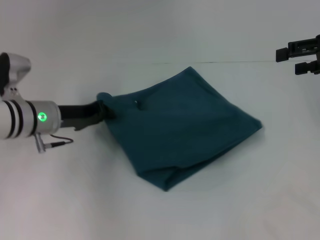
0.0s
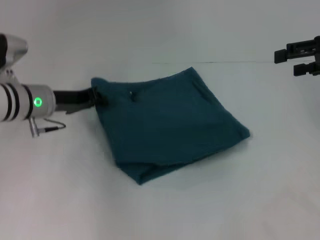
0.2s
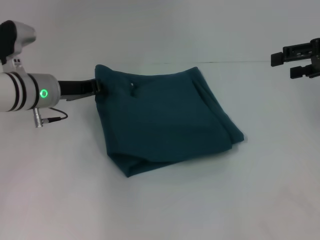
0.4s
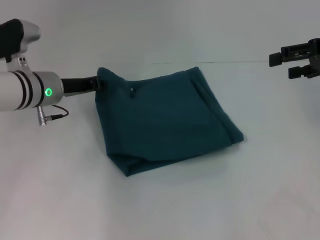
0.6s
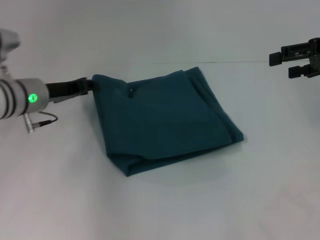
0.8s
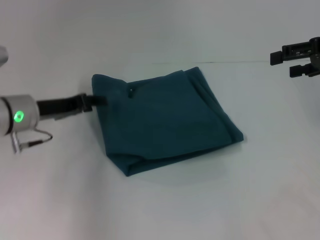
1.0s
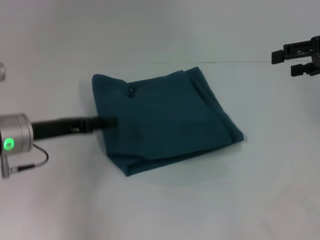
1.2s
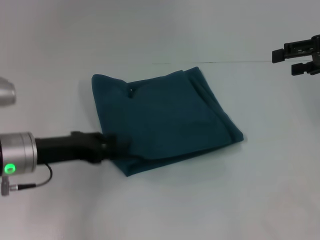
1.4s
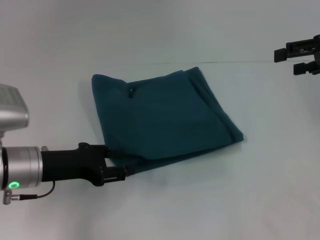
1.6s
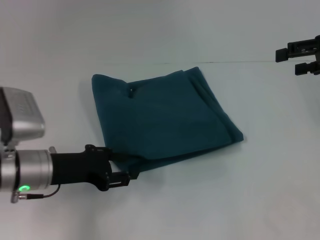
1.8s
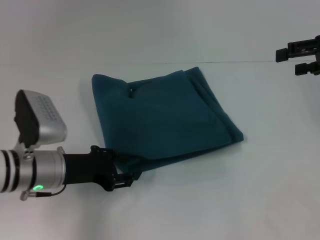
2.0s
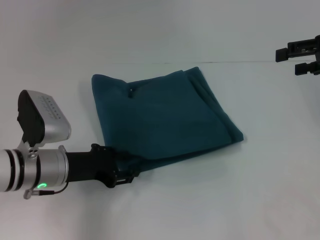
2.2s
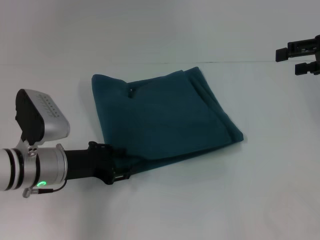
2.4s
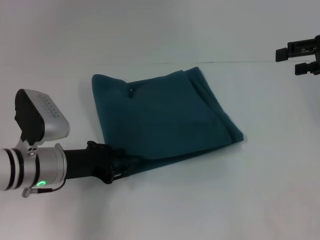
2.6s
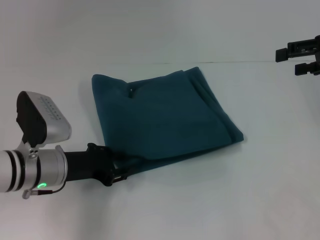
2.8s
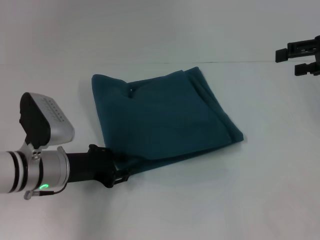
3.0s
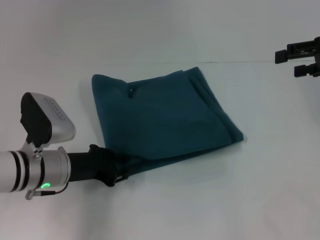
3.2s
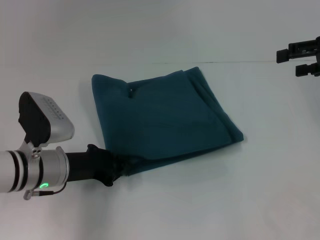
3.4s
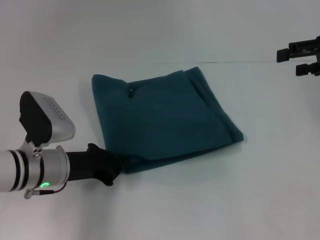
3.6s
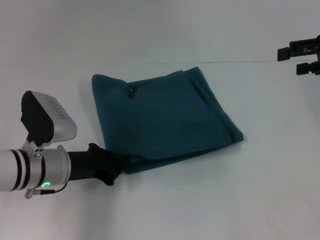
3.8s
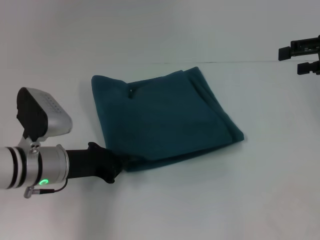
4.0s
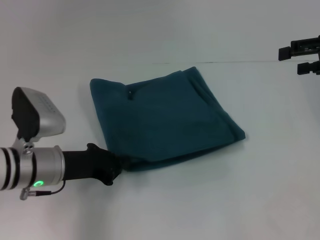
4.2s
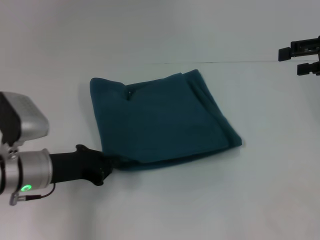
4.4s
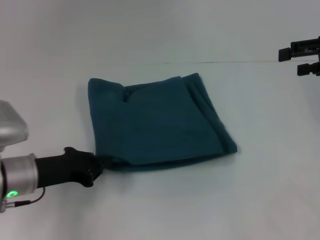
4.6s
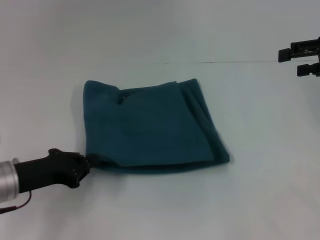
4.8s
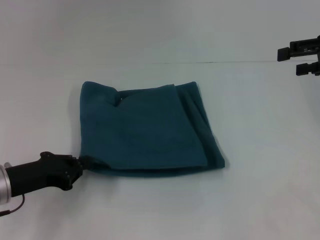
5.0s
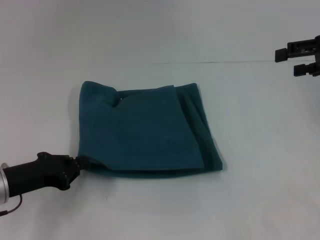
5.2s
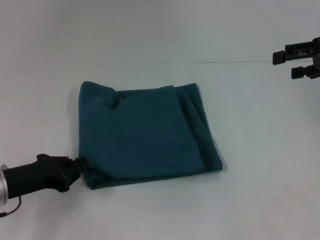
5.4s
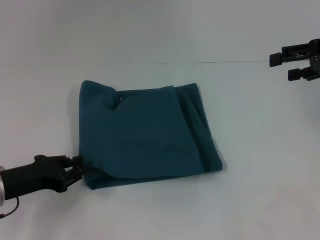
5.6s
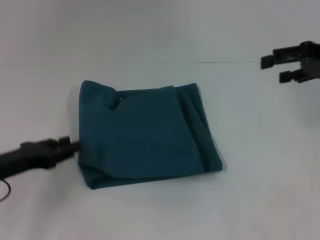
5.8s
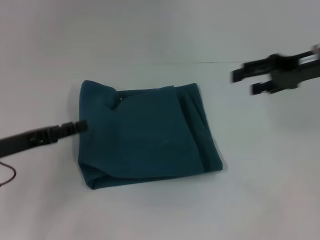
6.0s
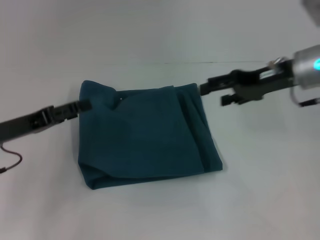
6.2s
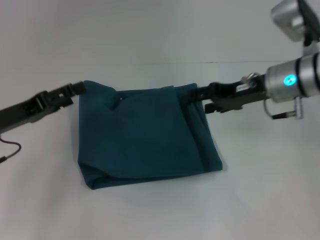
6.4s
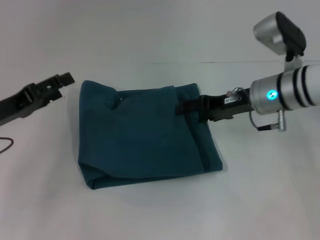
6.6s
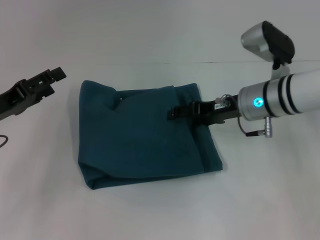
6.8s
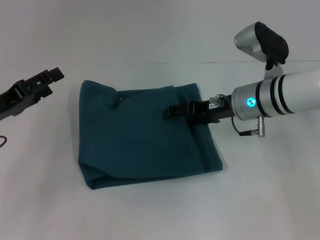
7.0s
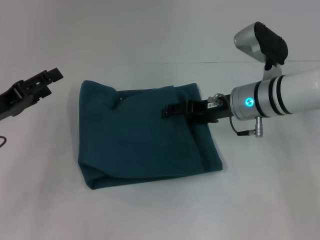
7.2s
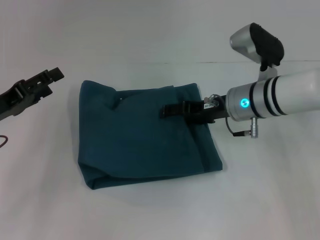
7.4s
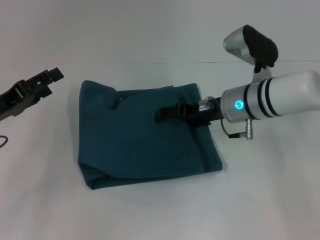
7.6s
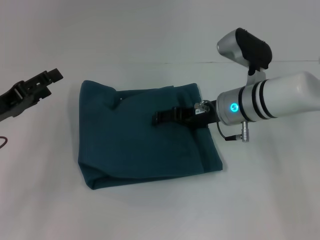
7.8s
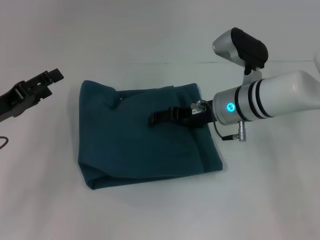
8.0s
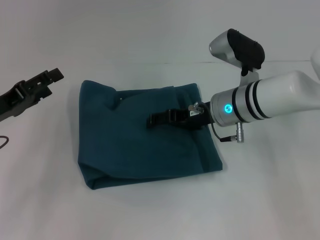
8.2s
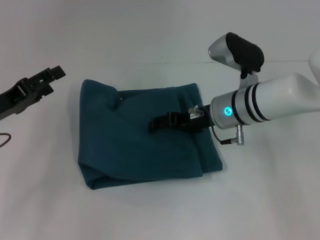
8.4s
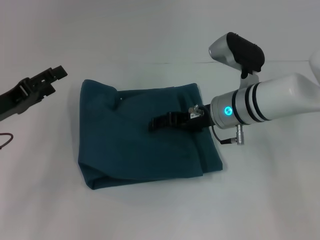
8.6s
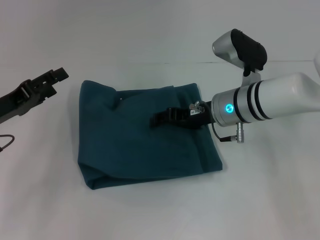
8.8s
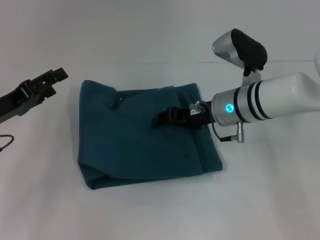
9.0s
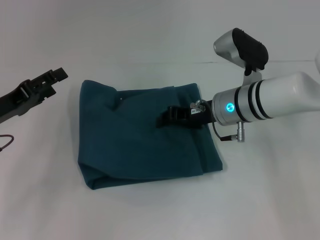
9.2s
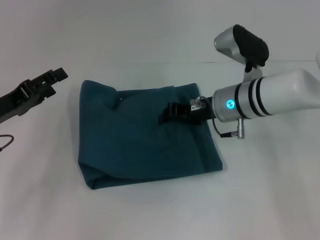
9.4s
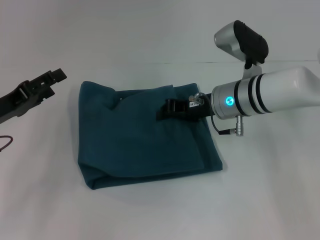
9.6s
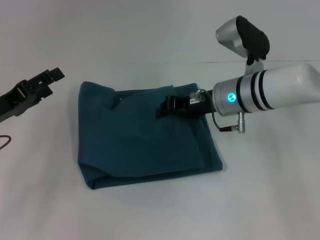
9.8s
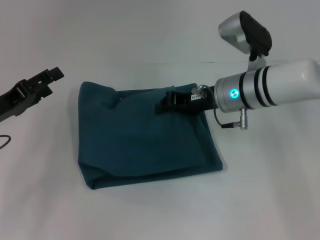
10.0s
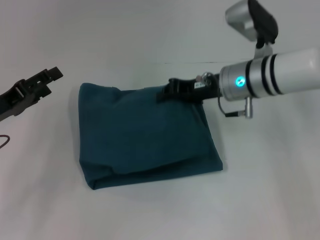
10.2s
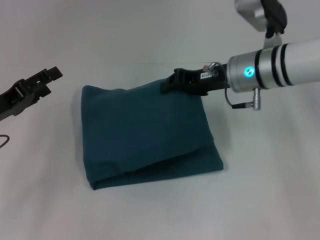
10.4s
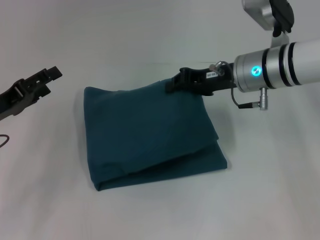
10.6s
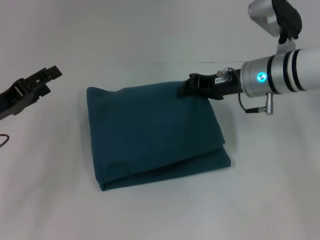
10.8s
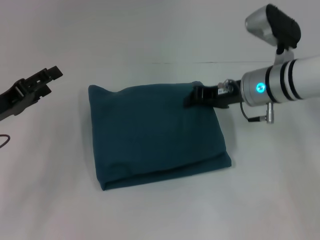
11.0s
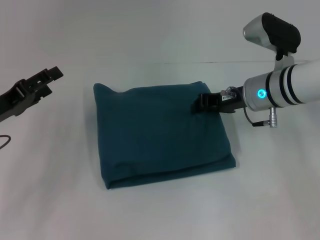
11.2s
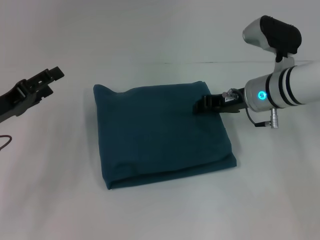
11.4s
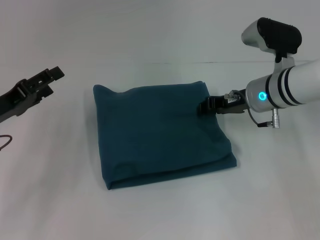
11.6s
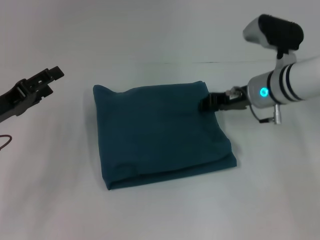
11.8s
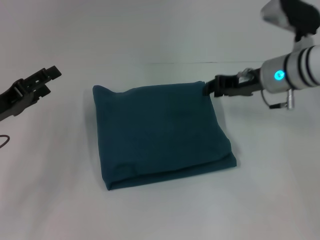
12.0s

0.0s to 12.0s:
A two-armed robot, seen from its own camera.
0.0s to 1.6s: The left gripper moves backward, some 10 cm, and opens its fingers.
1.6s to 3.0s: The grippers make only small movements.
3.0s to 4.4s: The left gripper closes up.
4.4s to 6.0s: Both grippers move to the left, about 5 cm. The left gripper opens its fingers.
6.0s to 7.6s: The left gripper opens up, while the right gripper moves to the left and downward, about 15 cm.
7.6s to 9.0s: The grippers stay close to where they were, moving slightly.
9.0s to 10.4s: The right gripper goes roughly 5 cm upward, and closes up.
10.4s to 12.0s: The right gripper shifts roughly 5 cm to the right.

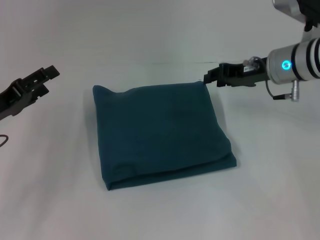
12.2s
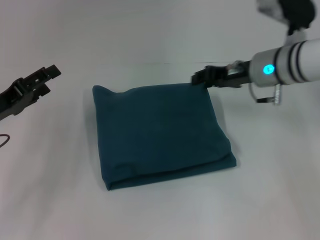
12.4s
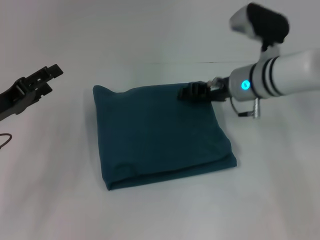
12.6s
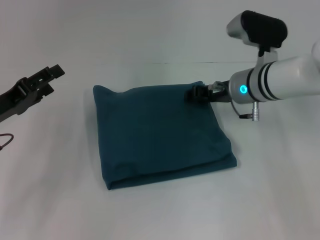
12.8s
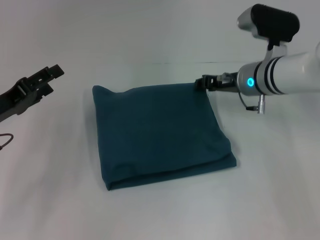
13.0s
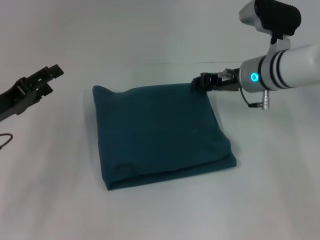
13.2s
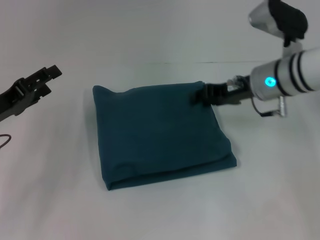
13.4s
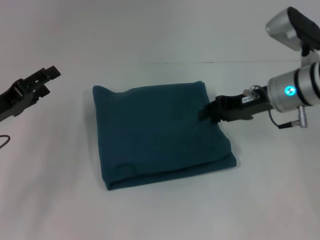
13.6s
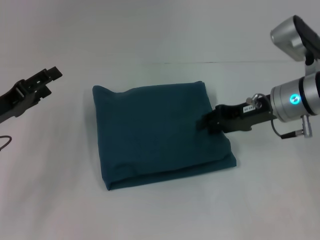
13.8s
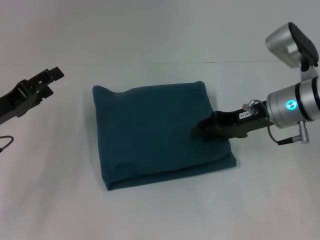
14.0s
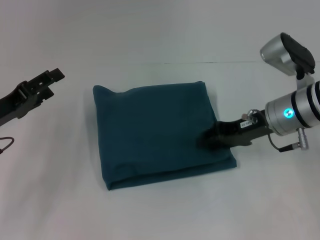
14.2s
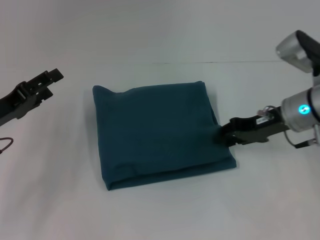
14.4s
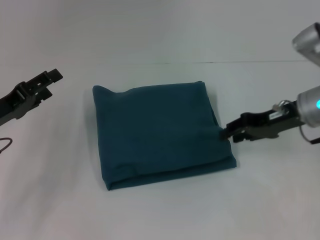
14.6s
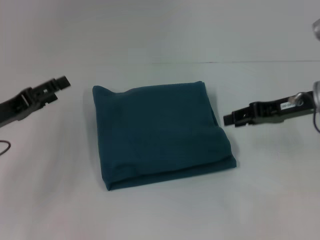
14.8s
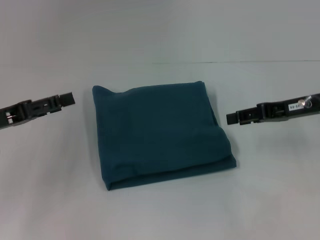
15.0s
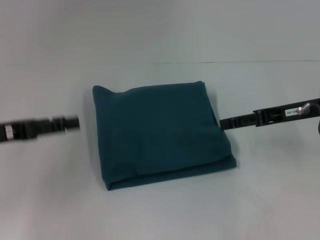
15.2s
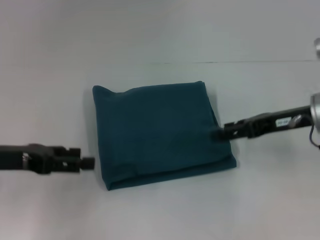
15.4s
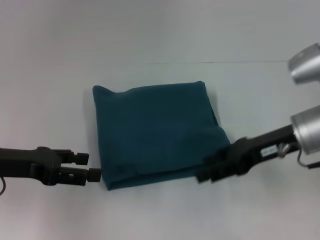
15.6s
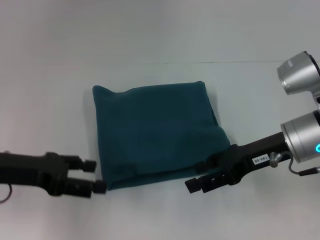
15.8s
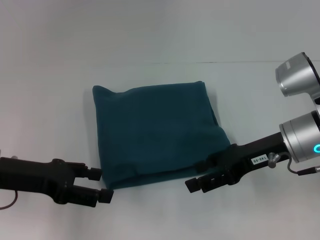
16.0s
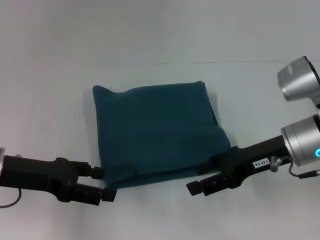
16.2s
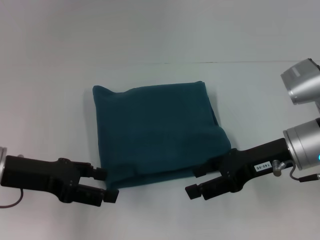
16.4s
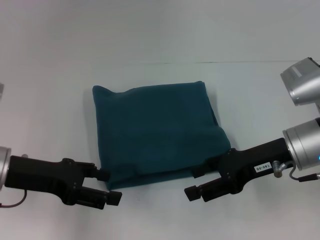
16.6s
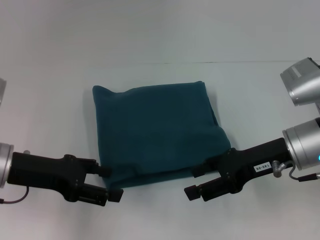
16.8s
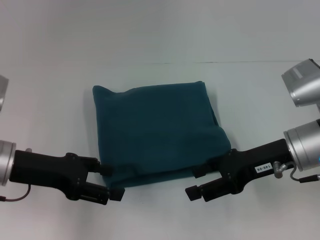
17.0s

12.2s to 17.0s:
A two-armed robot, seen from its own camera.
12.2s to 13.8s: The right gripper moves some 5 cm.
13.8s to 15.4s: The right gripper shifts by about 5 cm.
15.4s to 17.0s: The right gripper changes place by some 5 cm.

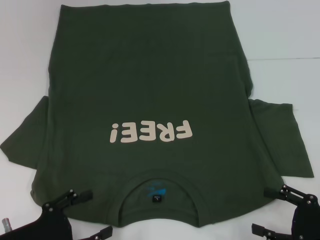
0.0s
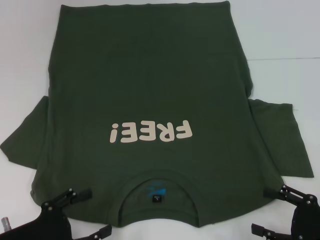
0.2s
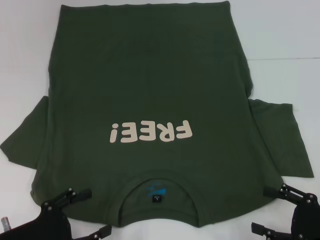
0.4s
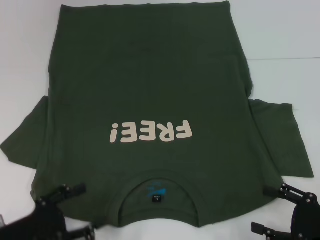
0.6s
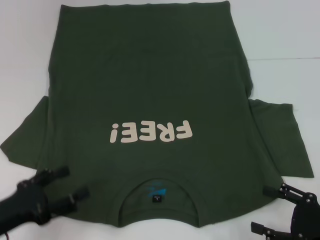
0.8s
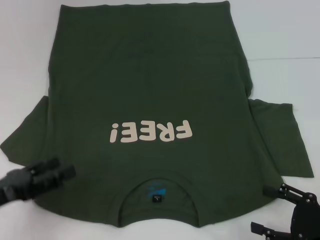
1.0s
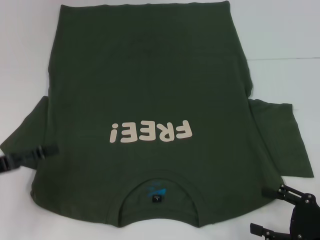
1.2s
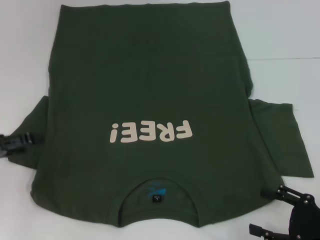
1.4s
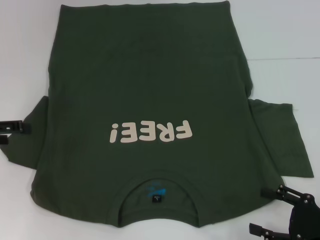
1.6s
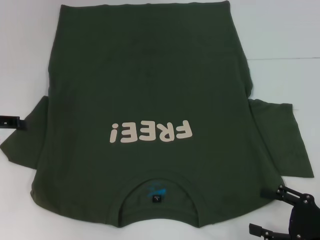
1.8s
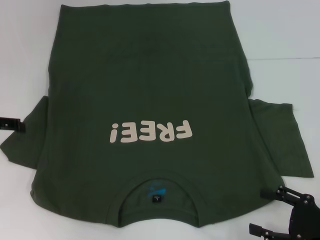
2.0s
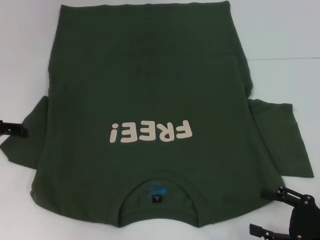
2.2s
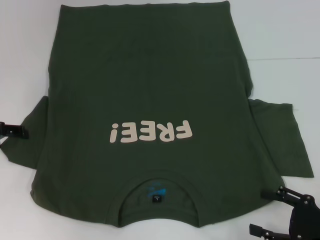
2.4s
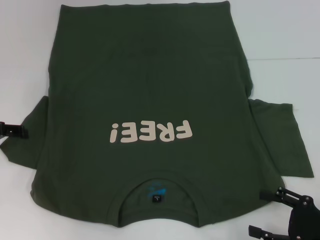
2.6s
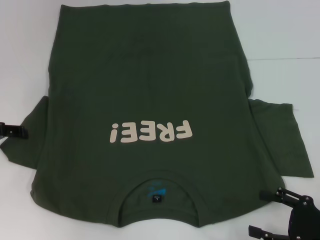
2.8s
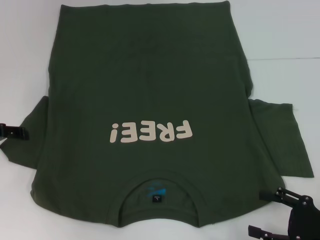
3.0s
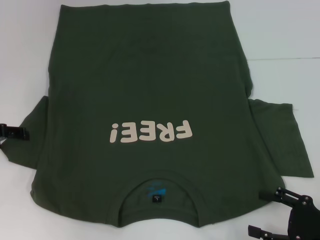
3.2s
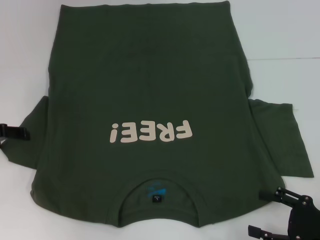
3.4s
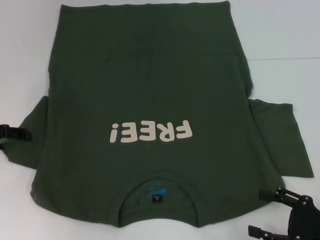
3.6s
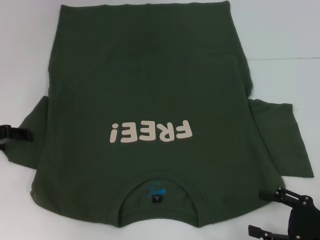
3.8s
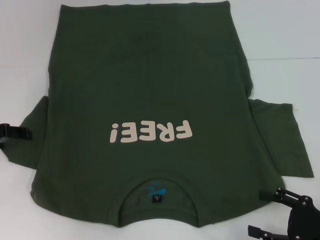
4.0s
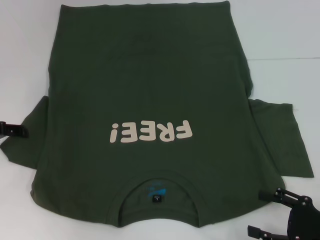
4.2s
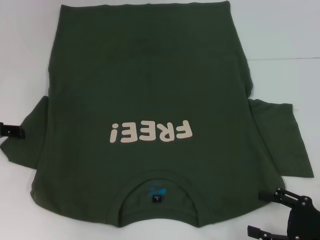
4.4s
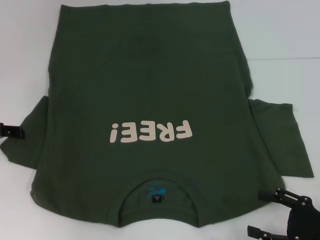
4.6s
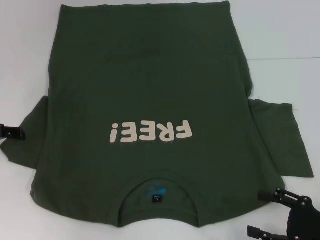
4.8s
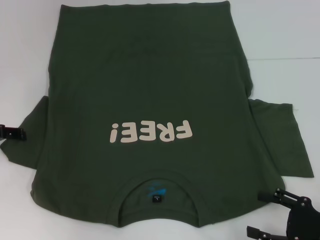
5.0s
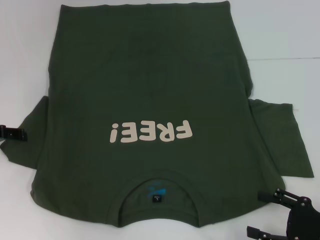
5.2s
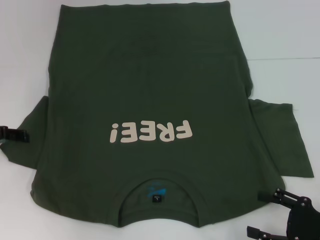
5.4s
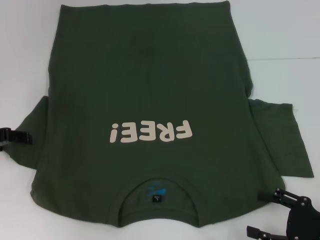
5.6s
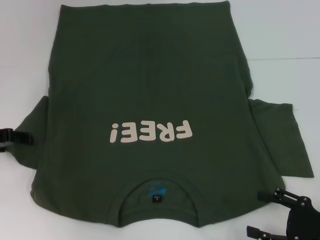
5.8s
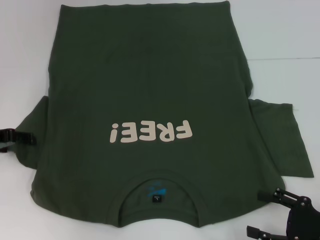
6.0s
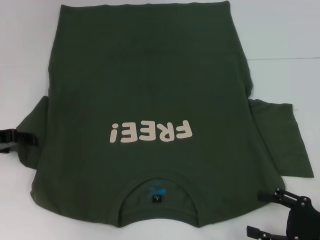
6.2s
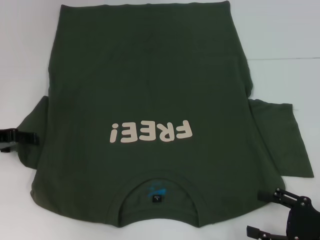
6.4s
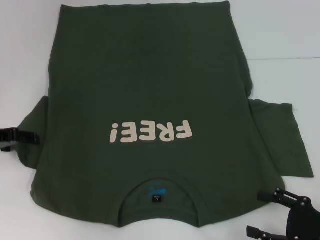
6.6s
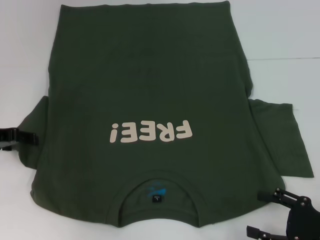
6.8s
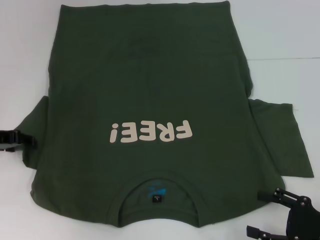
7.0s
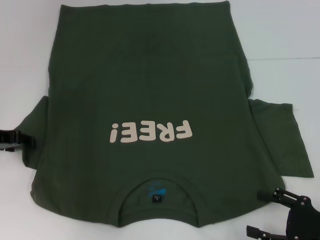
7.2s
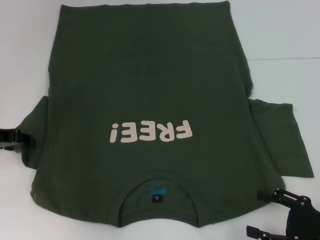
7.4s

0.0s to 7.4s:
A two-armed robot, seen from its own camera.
0.0s to 1.4s: The left gripper travels forward, upward and to the left by about 15 cm.
1.4s to 3.0s: The left gripper shifts roughly 10 cm forward.
3.0s to 4.4s: The two grippers keep their place.
4.4s to 6.0s: The grippers move only a little.
